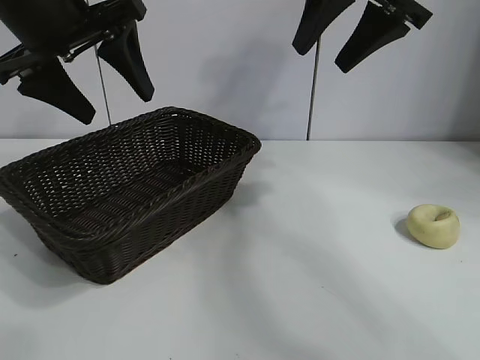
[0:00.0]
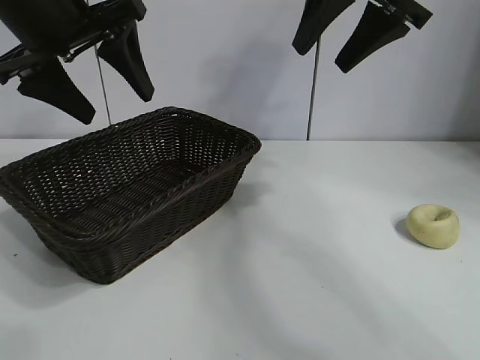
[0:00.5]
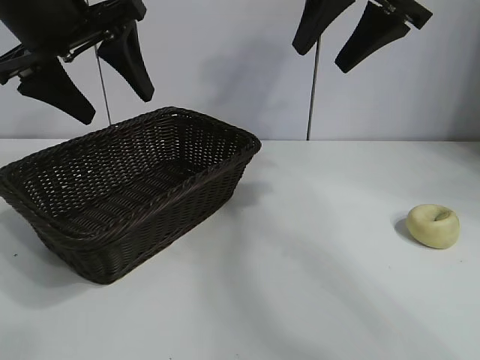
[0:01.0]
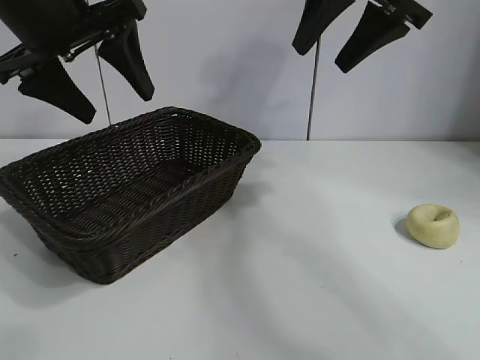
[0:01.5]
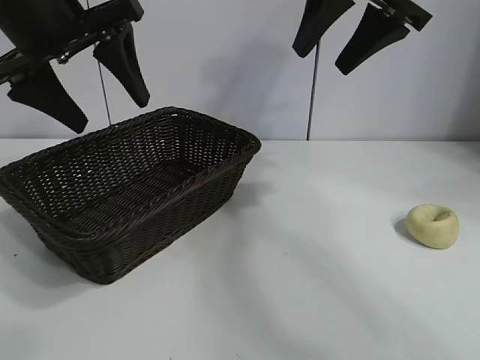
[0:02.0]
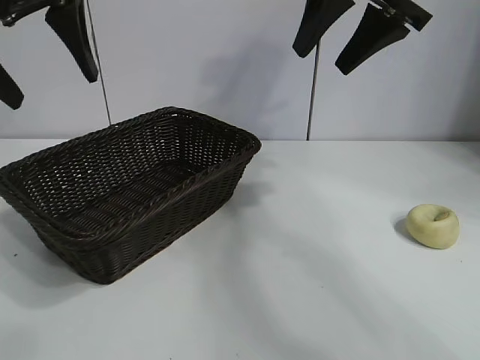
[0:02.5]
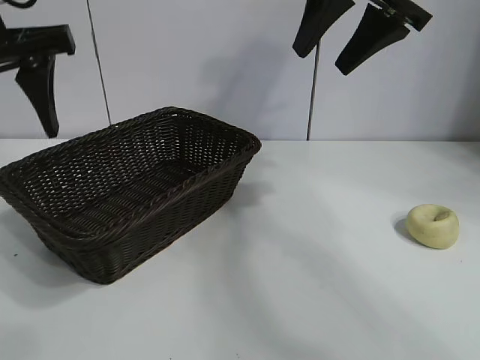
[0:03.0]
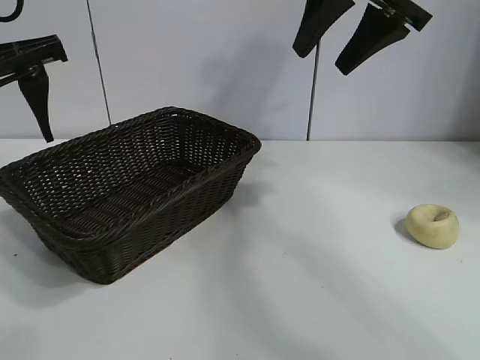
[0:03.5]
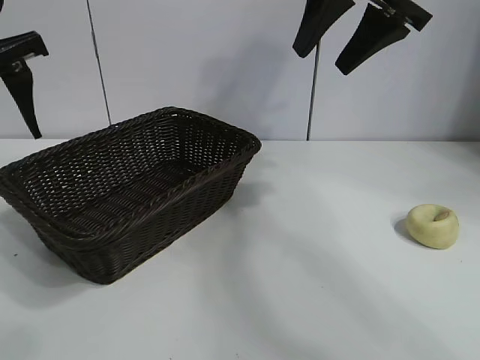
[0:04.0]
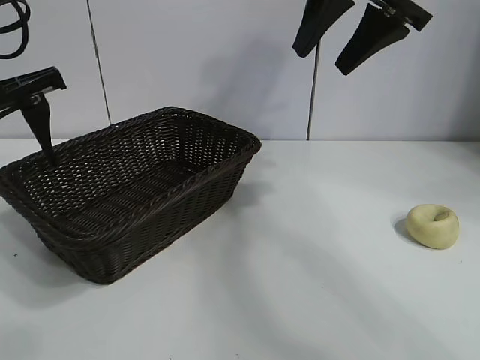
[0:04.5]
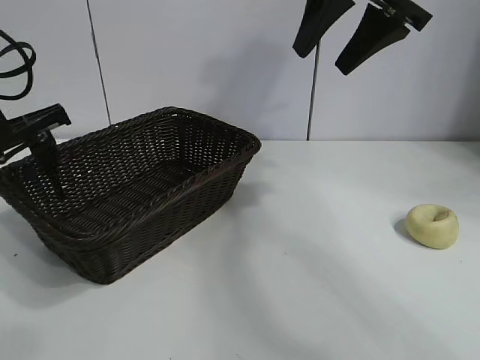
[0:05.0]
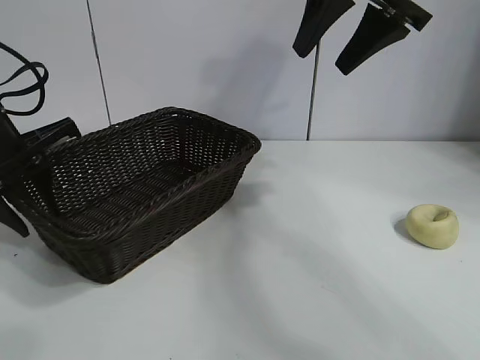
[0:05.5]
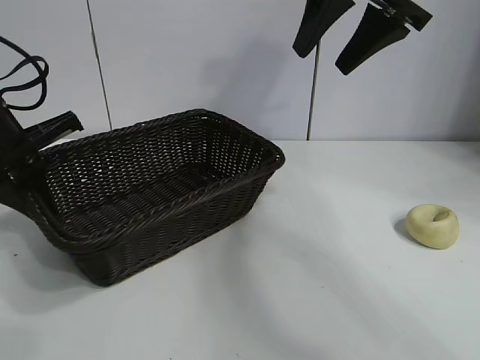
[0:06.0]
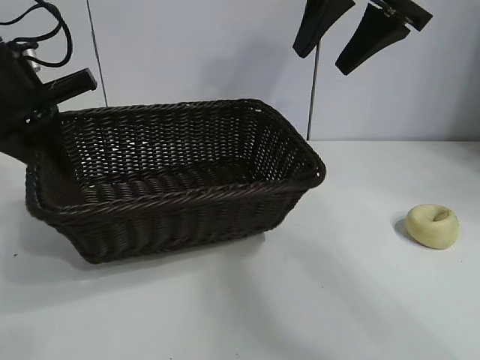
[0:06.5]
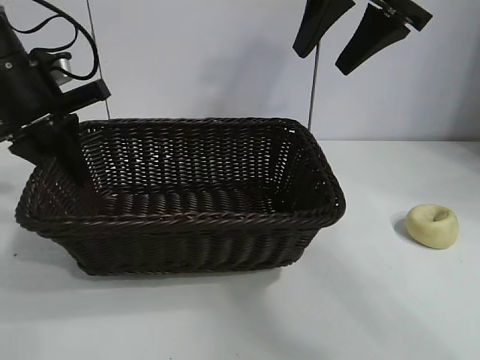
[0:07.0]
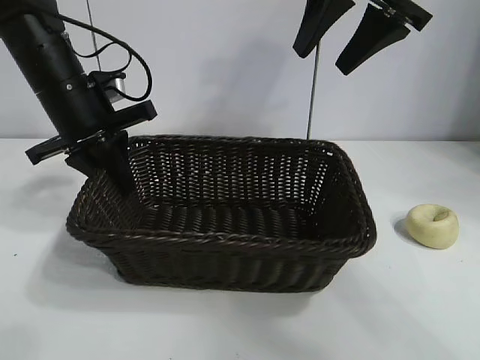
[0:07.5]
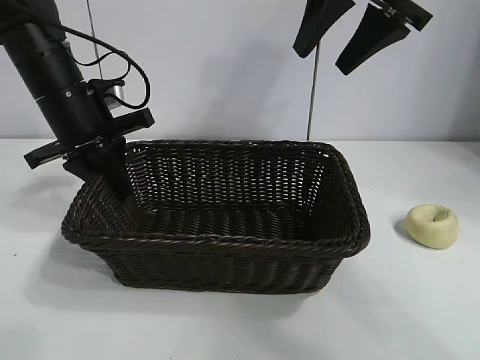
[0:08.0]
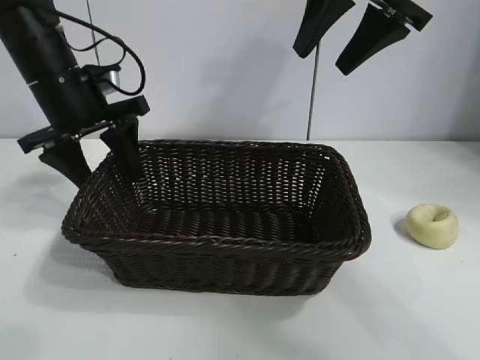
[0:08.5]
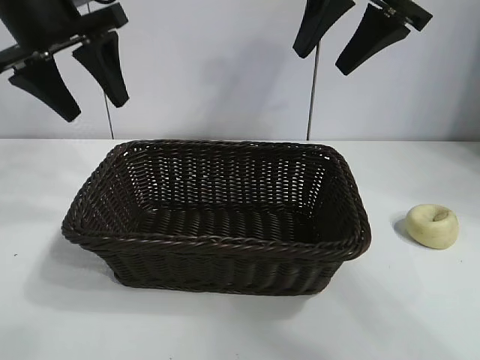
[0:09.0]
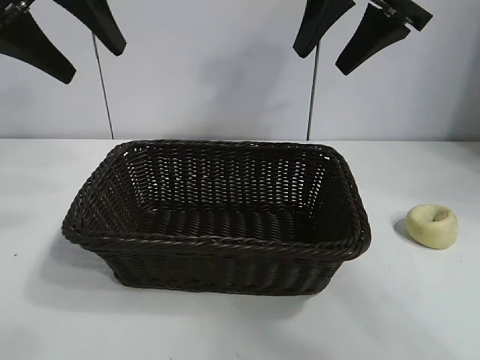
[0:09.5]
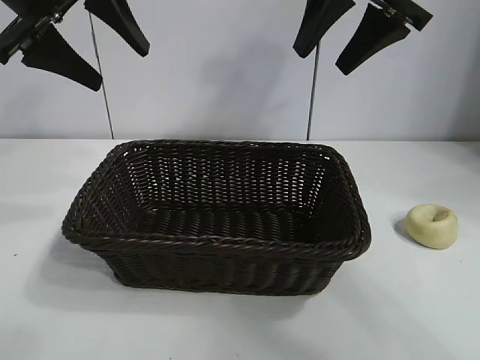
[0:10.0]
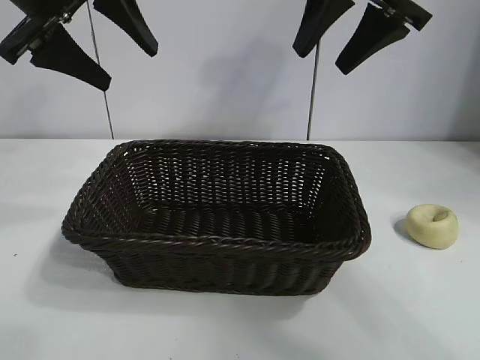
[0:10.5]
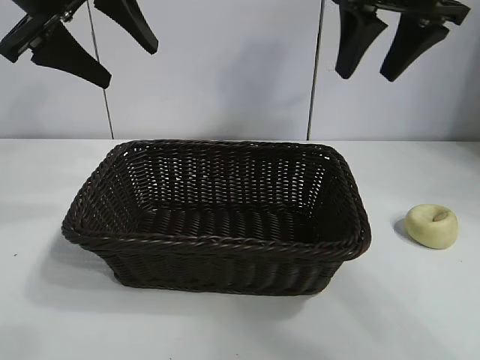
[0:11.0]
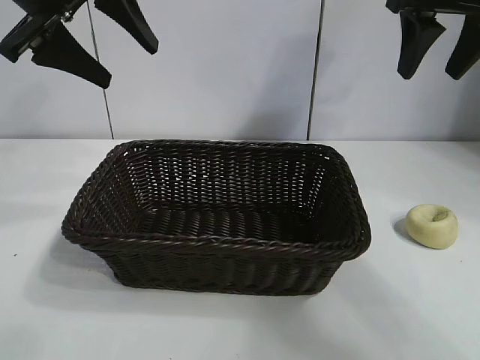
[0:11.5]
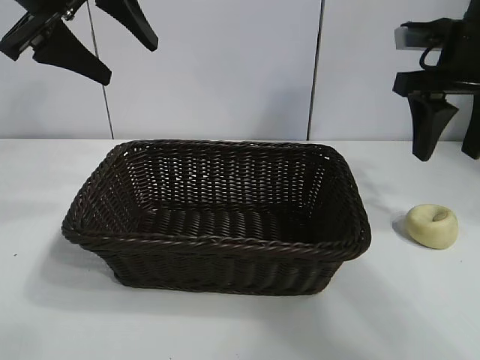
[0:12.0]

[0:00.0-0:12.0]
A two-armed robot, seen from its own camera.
Task of the whole recording: pick up the egg yolk pastry and put it into the basket.
Step, 0:02.0 to 0:05.5: Grasp the basket with left gripper.
Step, 0:06.0 to 0:08.0: Place the basket in the center of view with left gripper.

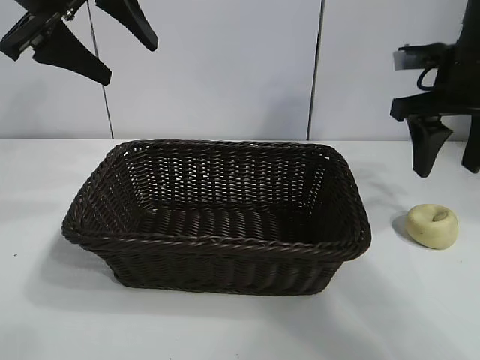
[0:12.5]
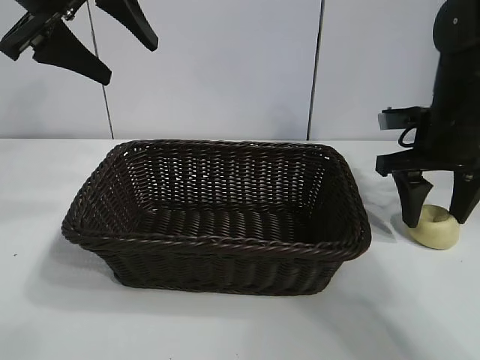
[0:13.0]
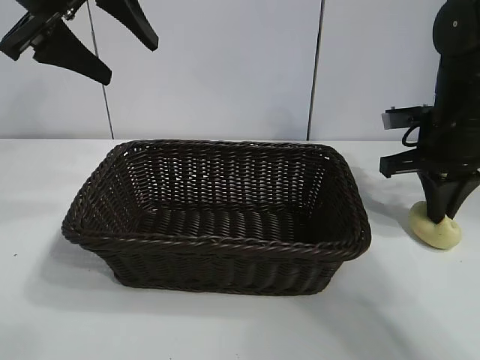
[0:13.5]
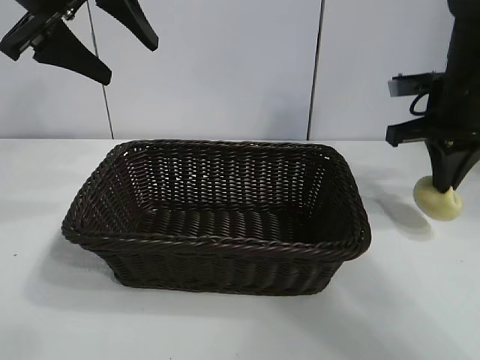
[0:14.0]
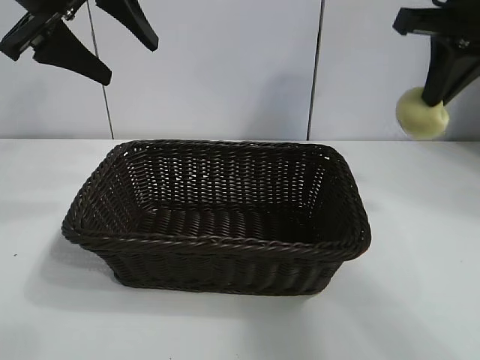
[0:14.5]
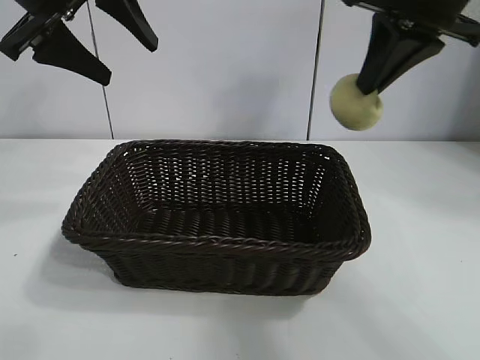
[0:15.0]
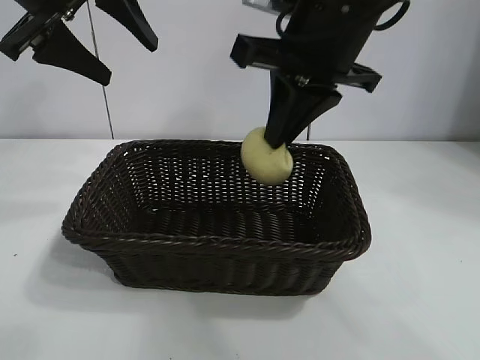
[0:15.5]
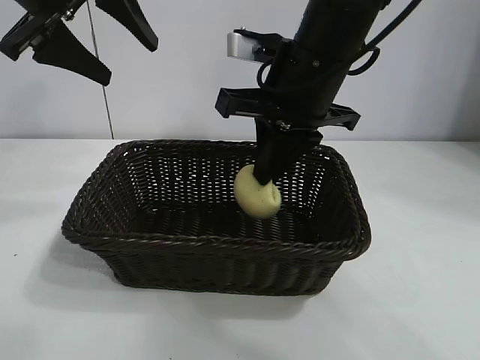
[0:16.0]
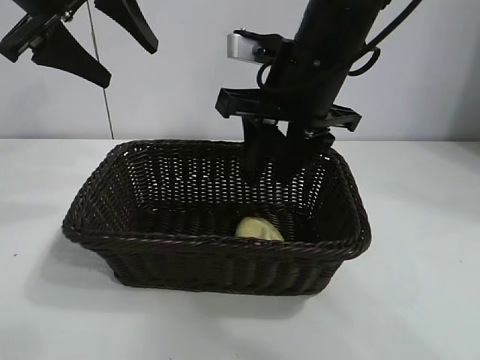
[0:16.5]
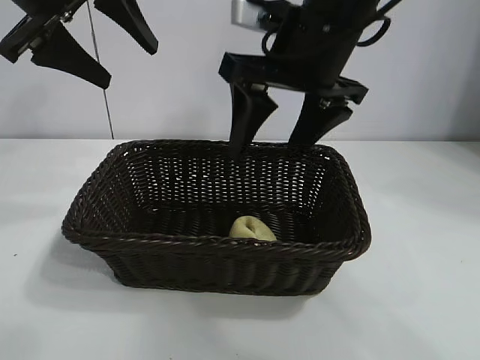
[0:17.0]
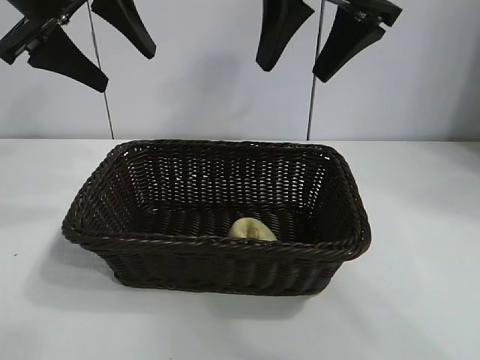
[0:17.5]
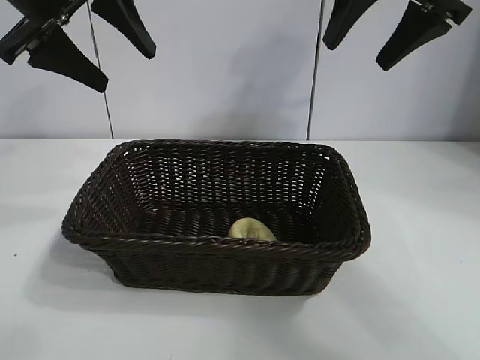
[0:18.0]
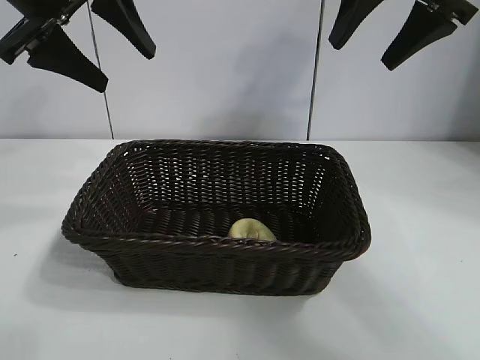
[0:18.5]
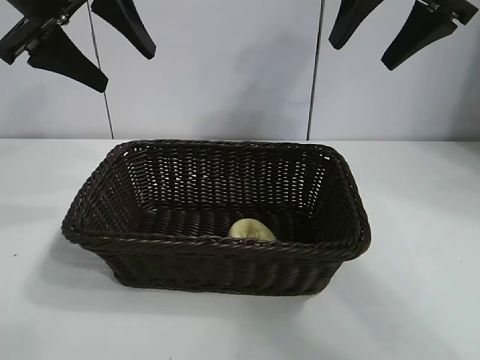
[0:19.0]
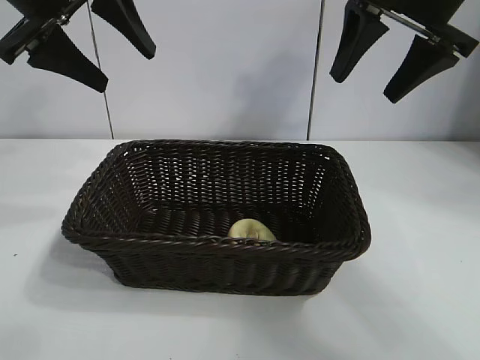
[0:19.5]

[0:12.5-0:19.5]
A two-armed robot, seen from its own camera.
Task of the whole recording: pick up the egg yolk pastry and put it into the basket.
Step, 0:14.0 to 0:16.5: Place the egg yolk pastry in the basket with right gripper.

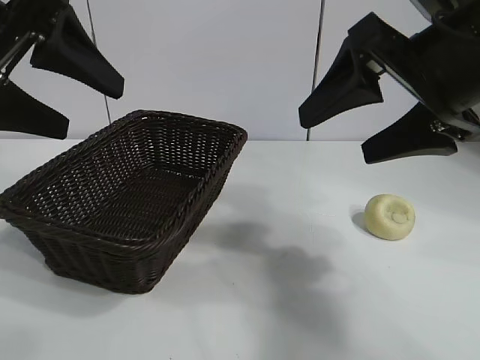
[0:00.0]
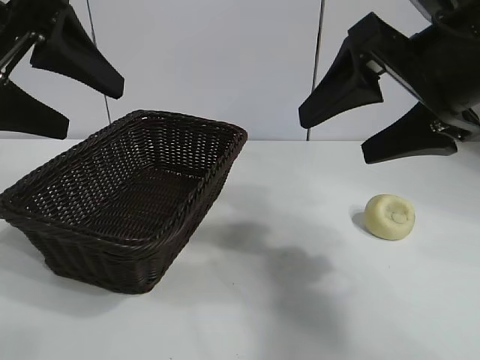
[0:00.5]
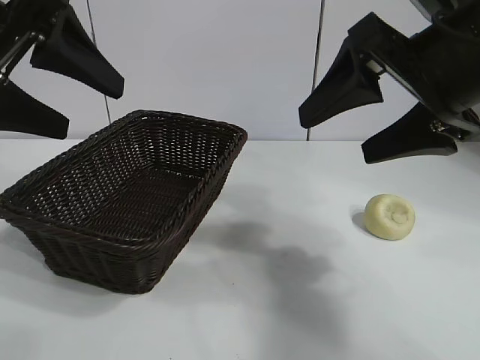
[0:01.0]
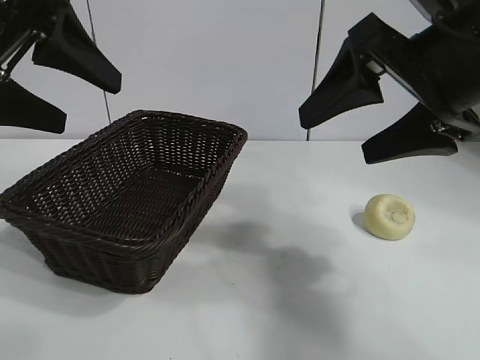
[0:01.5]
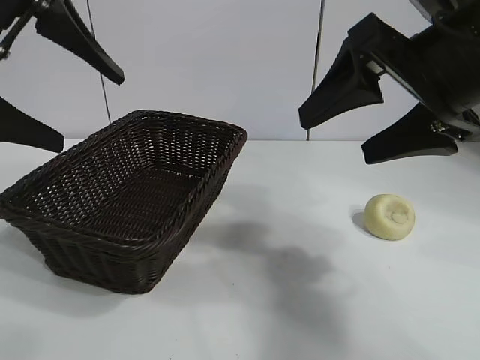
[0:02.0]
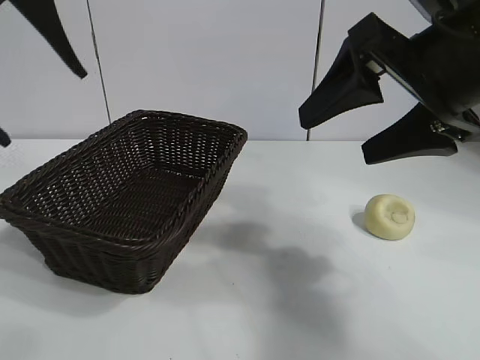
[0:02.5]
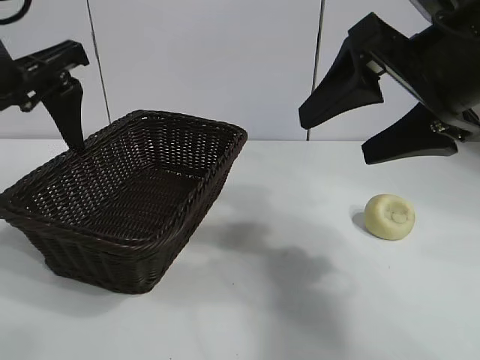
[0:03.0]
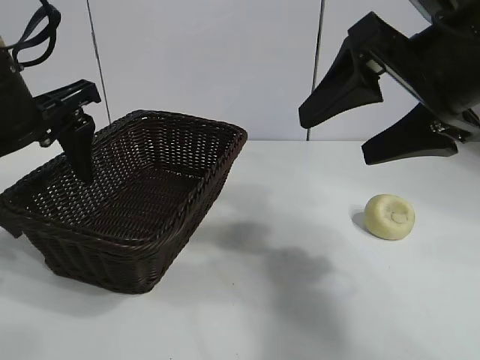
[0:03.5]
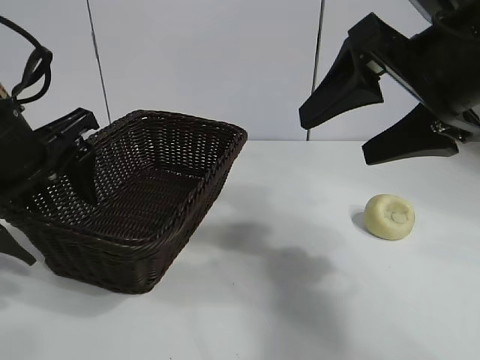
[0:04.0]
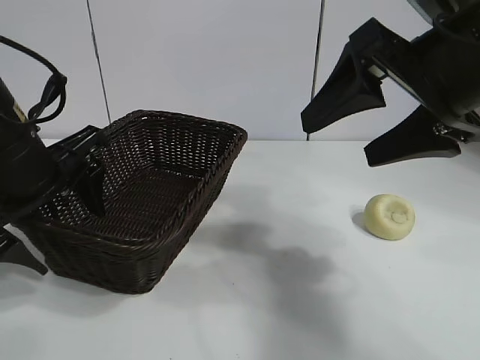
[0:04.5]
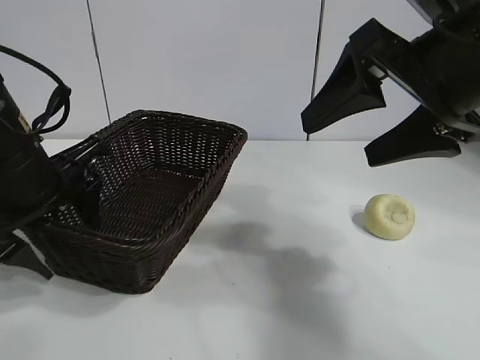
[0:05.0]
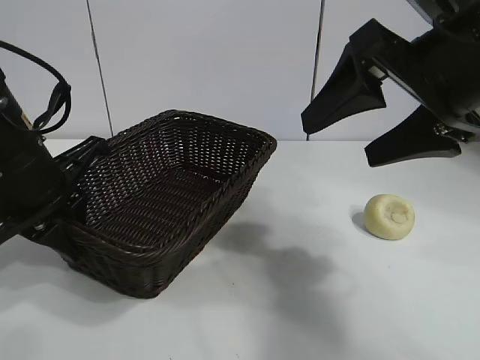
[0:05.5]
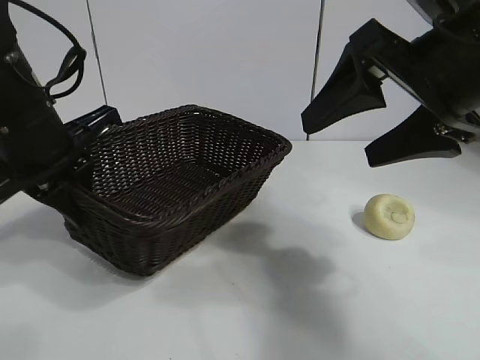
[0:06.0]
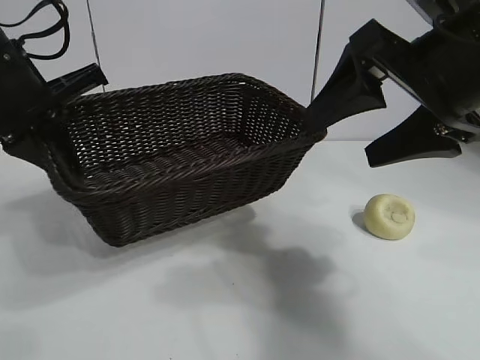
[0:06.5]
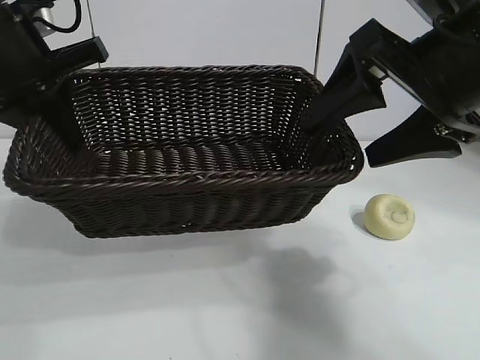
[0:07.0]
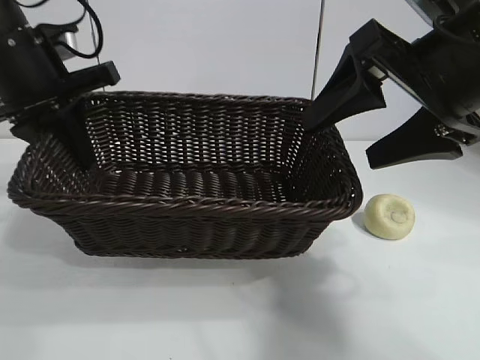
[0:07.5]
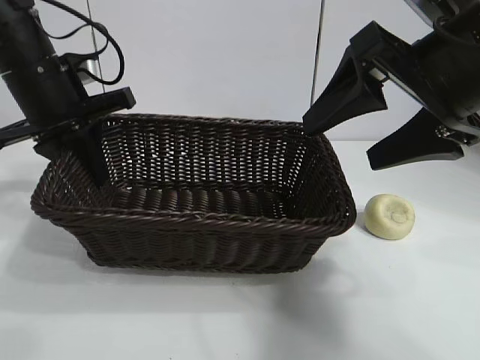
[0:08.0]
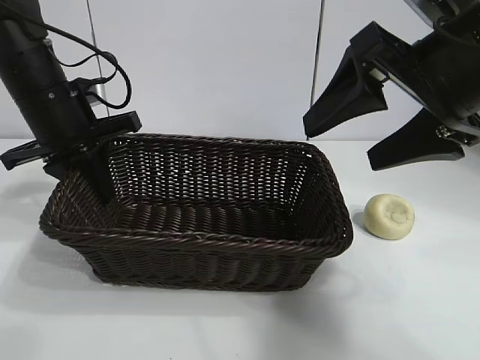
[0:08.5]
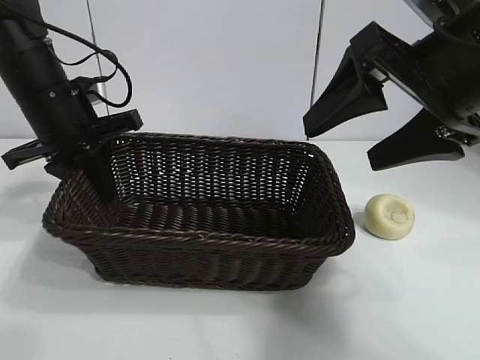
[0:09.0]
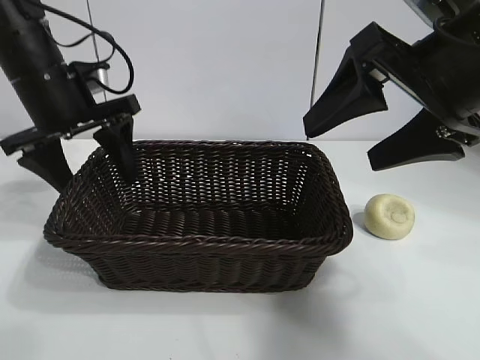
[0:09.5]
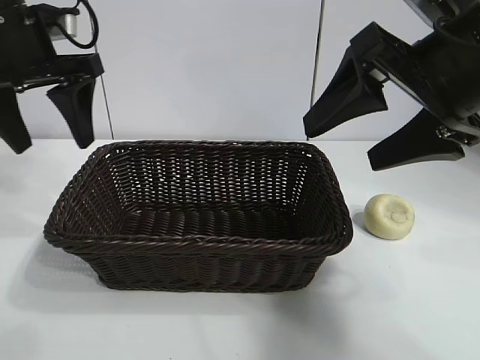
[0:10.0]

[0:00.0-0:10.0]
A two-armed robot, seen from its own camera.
Task of the whole recording: pick up the egg yolk pastry and put it into the basket.
Step, 0:01.5 to 0:05.0: Grasp the basket with left gripper.
Step, 0:05.5 to 0:09.0: Place the basket in the center of view with left gripper.
